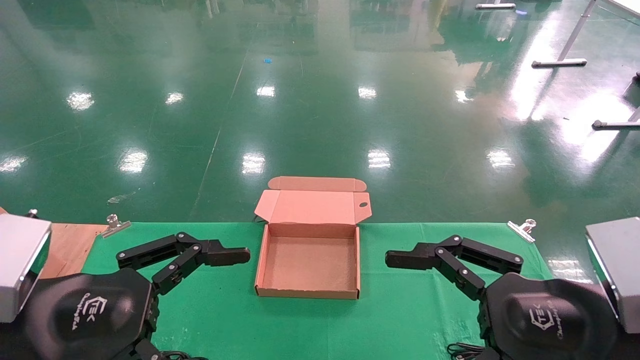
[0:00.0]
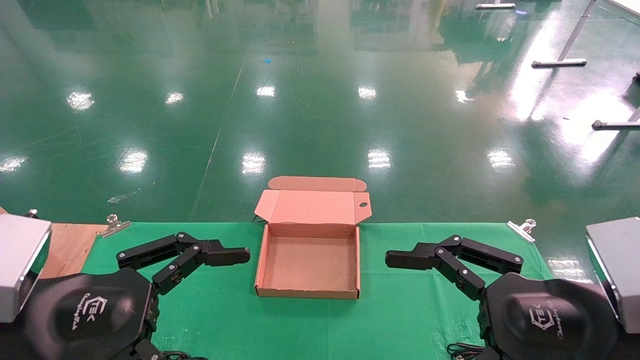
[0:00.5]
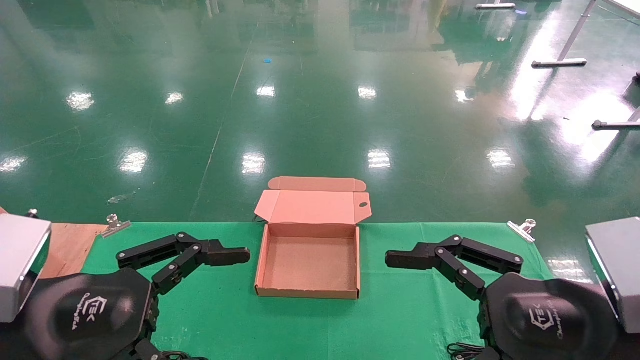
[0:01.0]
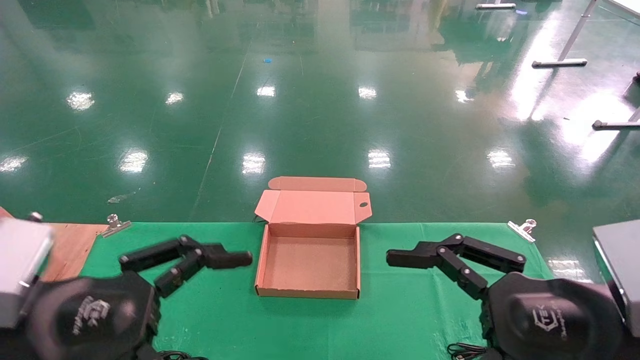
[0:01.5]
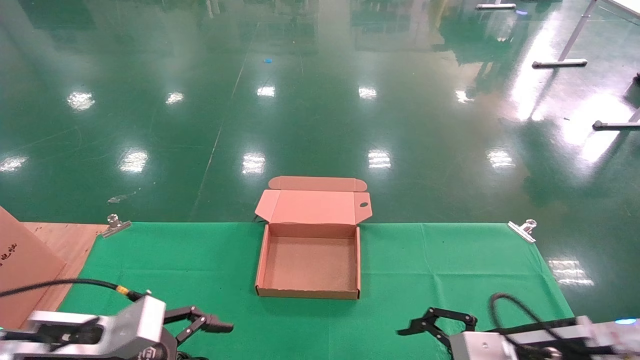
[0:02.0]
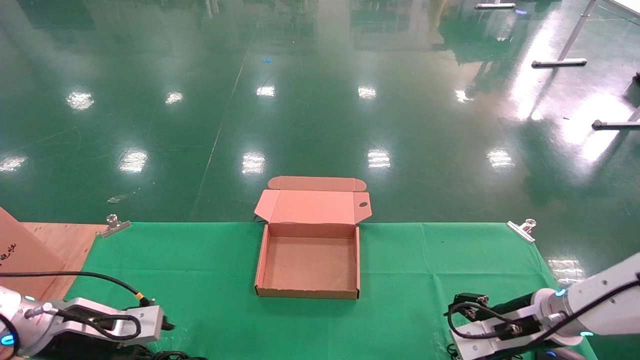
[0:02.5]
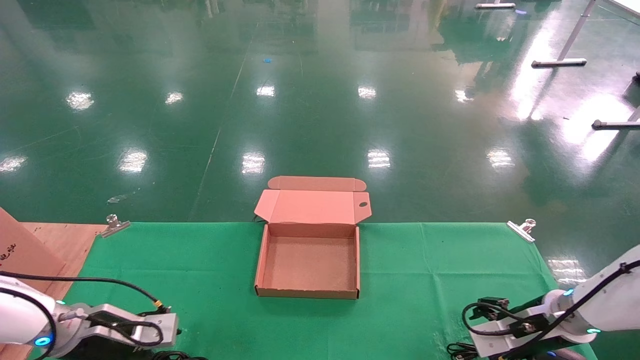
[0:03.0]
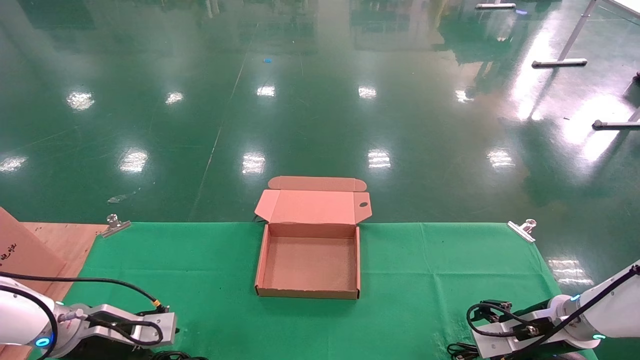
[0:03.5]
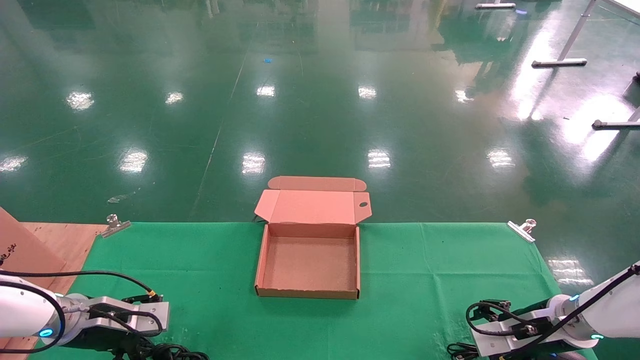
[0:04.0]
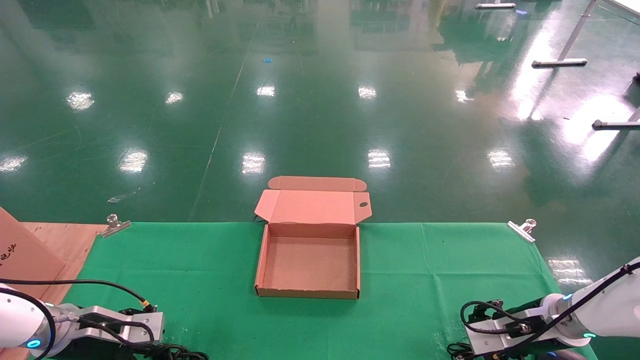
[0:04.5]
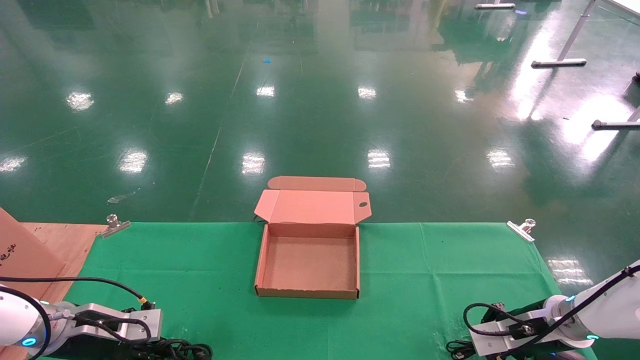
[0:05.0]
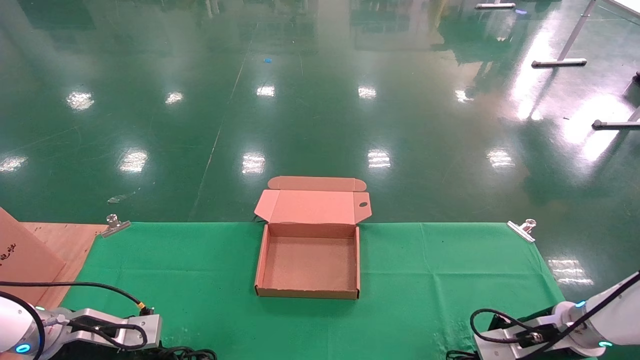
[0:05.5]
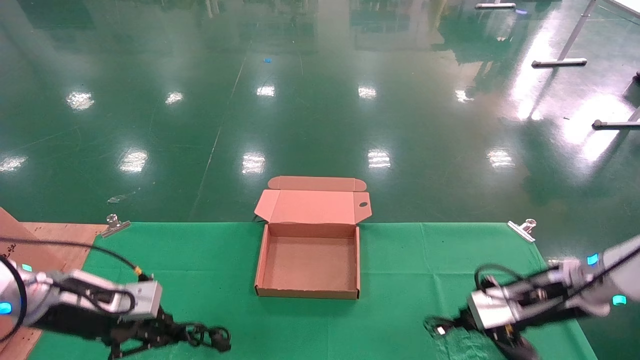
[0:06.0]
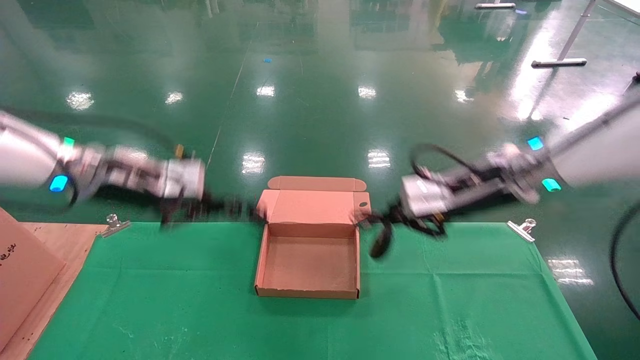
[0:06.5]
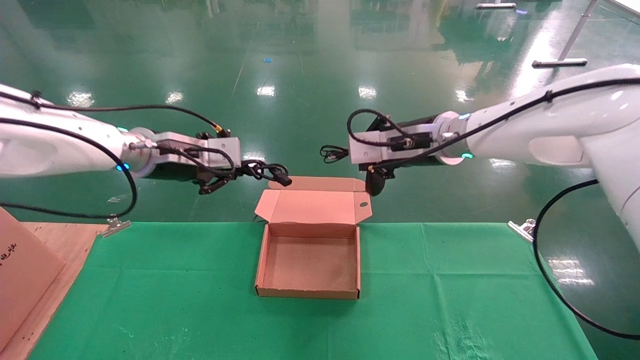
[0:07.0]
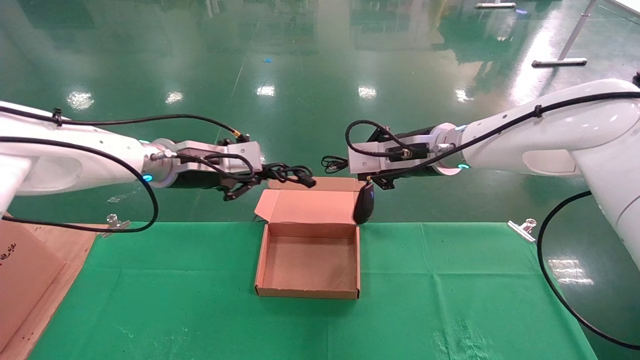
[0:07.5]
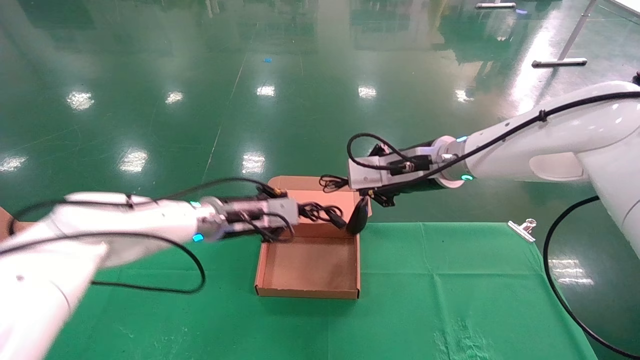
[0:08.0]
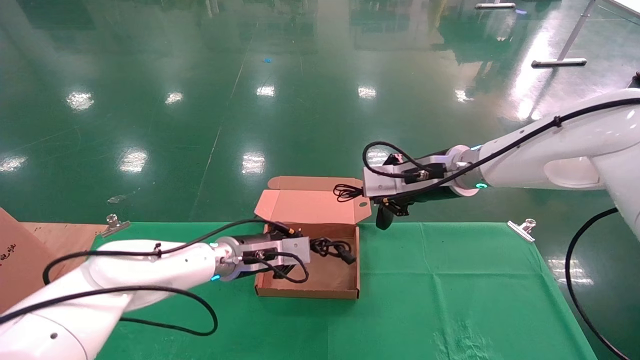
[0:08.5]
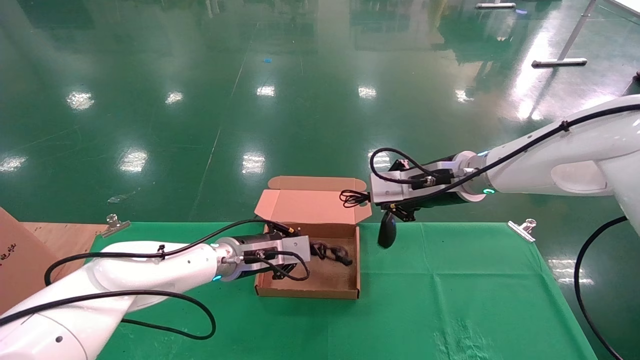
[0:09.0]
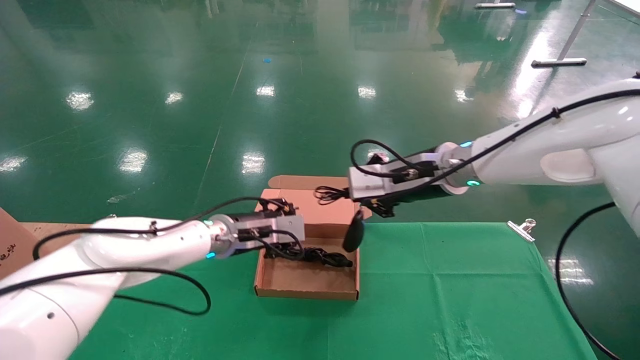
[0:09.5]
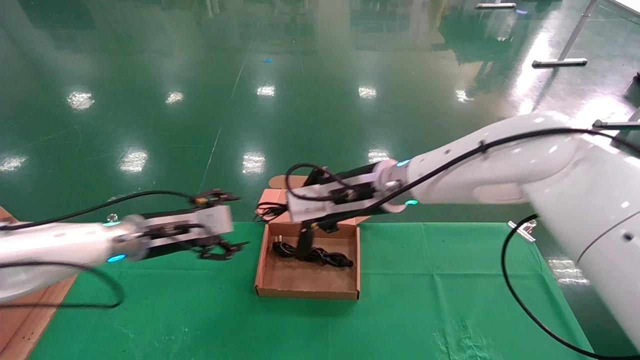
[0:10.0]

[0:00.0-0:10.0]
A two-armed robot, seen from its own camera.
Step, 0:02.5 to 0:06.5: Grab and lift both the mouse and power cord from the accessory packaging area at the same time.
0:00.0 to 0:02.0: The right gripper shifts approximately 15 cm forward and downward; the left gripper goes approximately 15 cm downward and forward.
0:02.0 to 0:04.0: The right gripper heads forward, to the right and downward, covering roughly 15 cm. Meanwhile the left gripper is displaced forward, to the left and downward by some 15 cm.
0:04.0 to 0:06.0: Both grippers move upward, roughly 10 cm. The left gripper closes up. Meanwhile the right gripper closes up.
0:06.0 to 0:08.0: The left gripper shifts roughly 20 cm to the right and forward. The right gripper is displaced to the left and upward by some 20 cm.
0:08.0 to 0:10.0: The two grippers go roughly 10 cm to the left. The left gripper opens up.

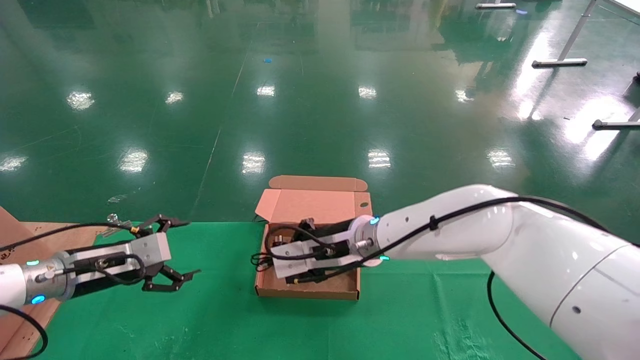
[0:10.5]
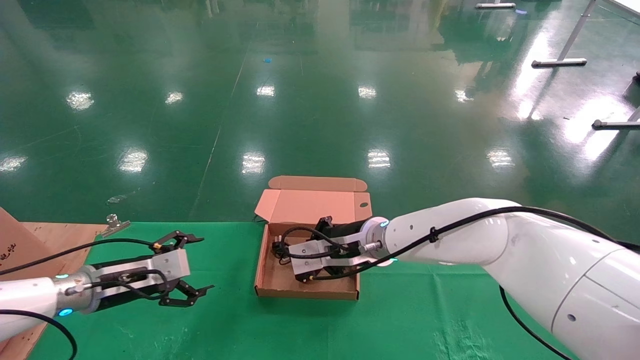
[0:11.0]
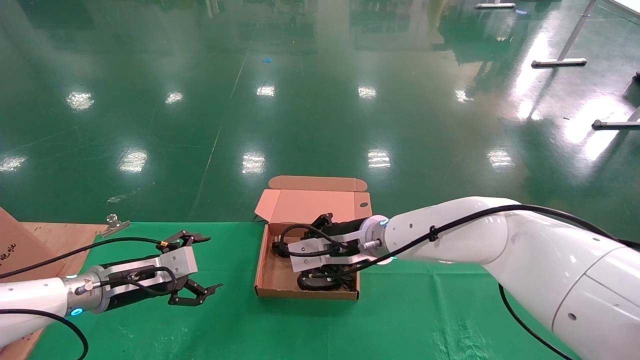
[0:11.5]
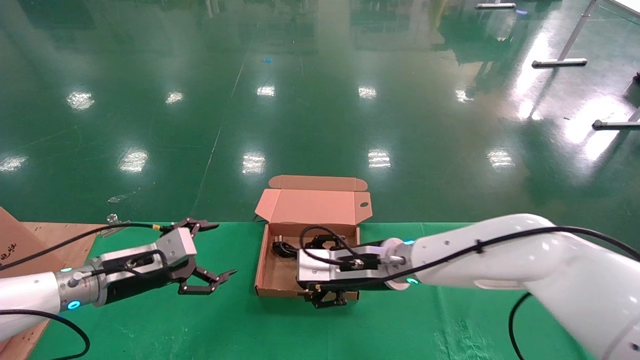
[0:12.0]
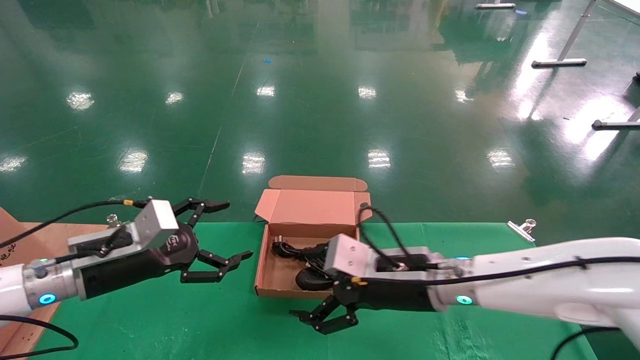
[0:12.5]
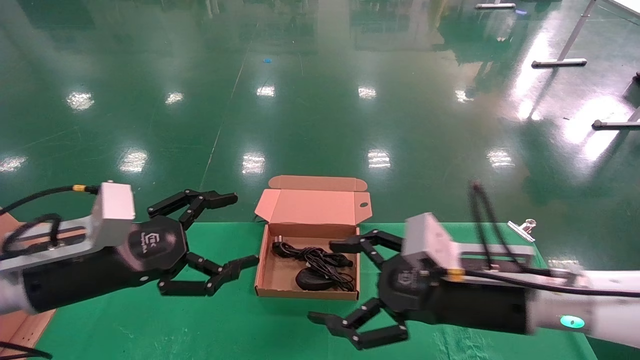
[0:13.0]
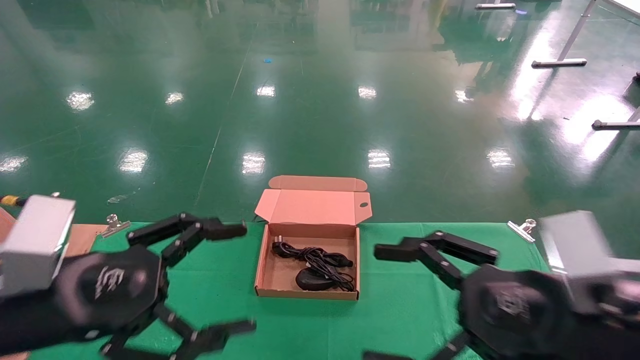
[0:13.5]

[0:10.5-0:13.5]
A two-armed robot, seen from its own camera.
0:10.5 to 0:12.0: The right gripper changes place by approximately 5 cm, and opens up.
0:12.0 to 0:13.5: The left gripper heads backward and upward, covering approximately 20 cm. Meanwhile the right gripper travels backward and to the right by roughly 25 cm, and opens its fingers.

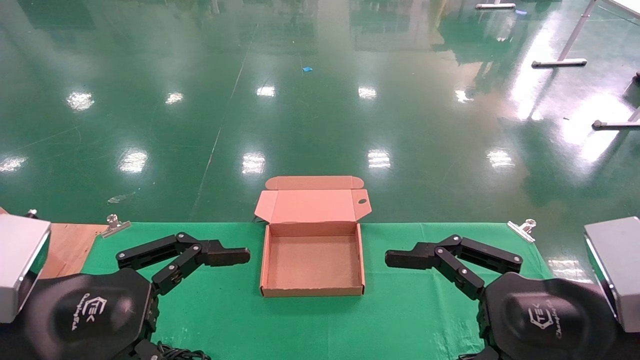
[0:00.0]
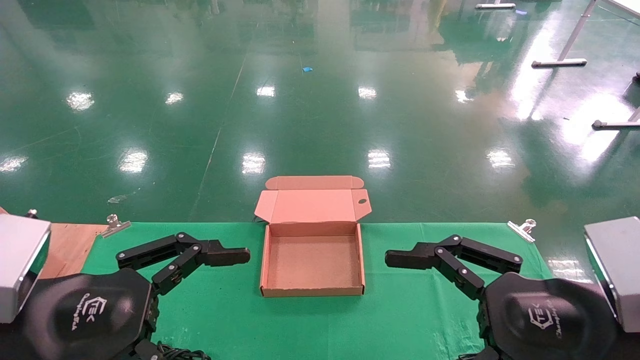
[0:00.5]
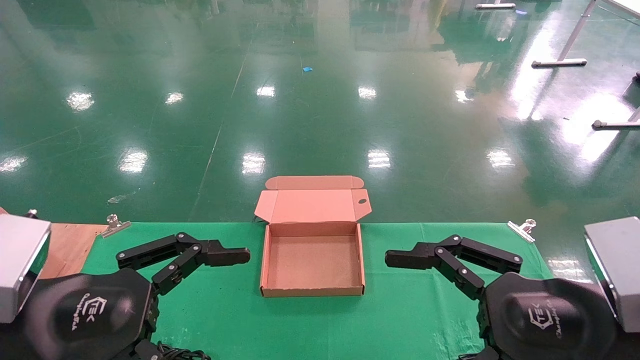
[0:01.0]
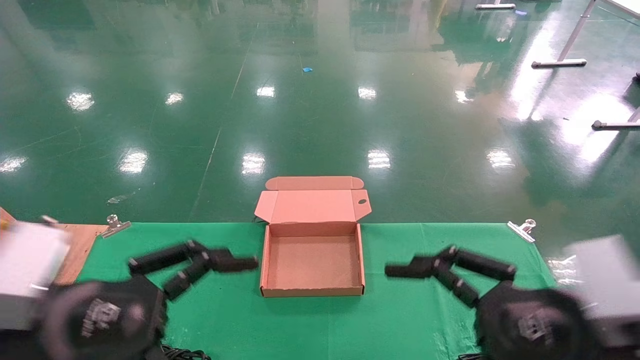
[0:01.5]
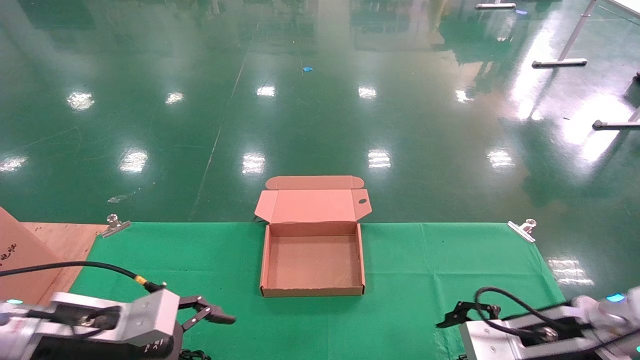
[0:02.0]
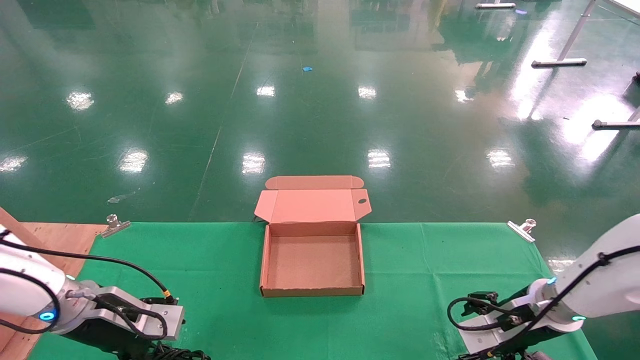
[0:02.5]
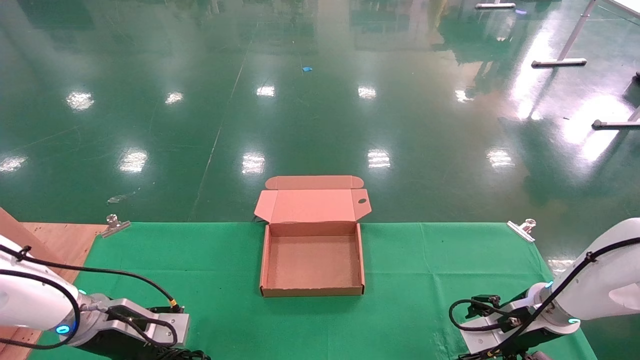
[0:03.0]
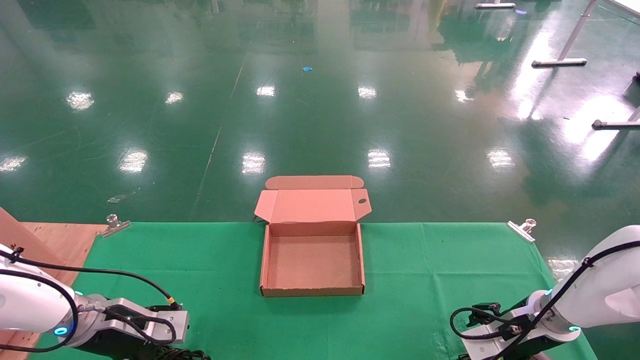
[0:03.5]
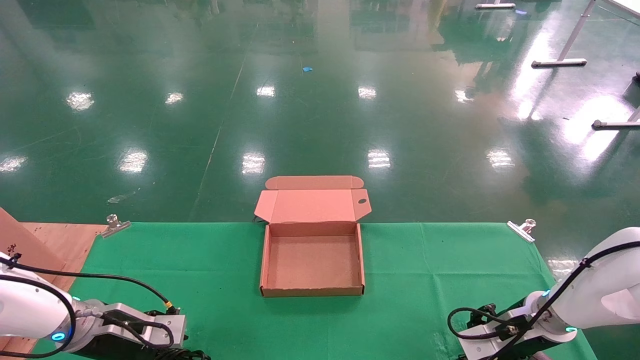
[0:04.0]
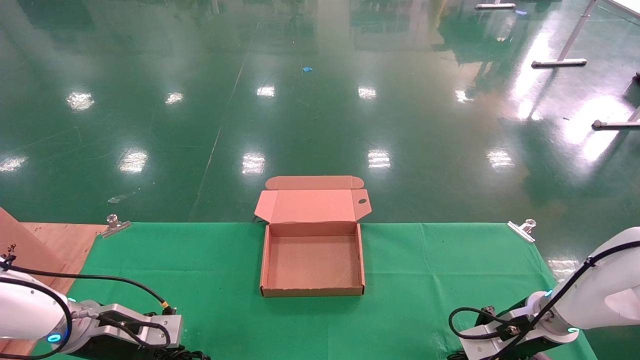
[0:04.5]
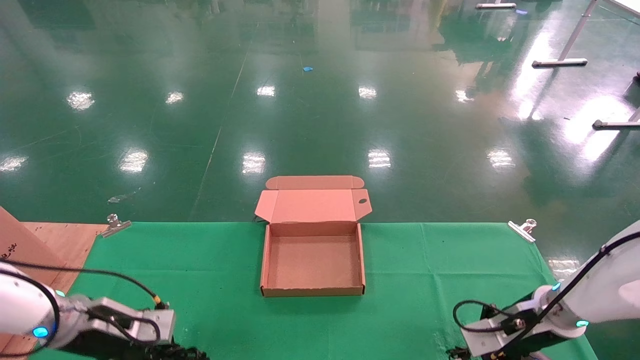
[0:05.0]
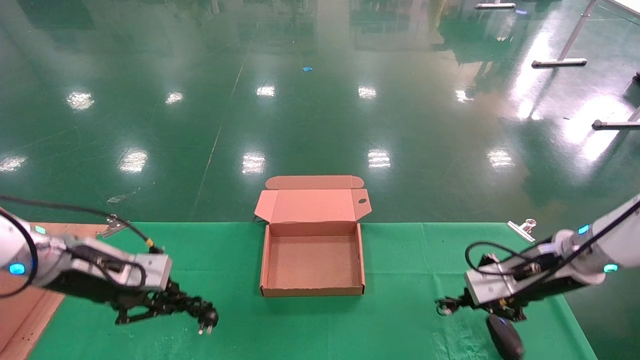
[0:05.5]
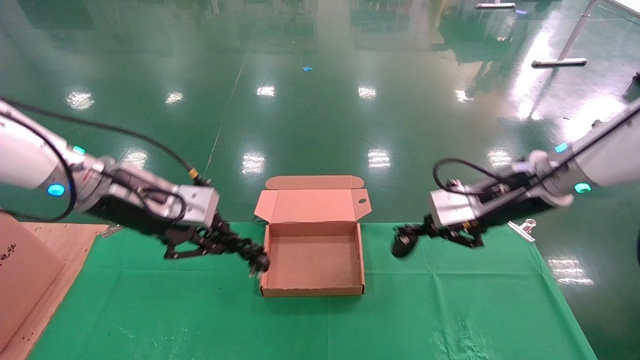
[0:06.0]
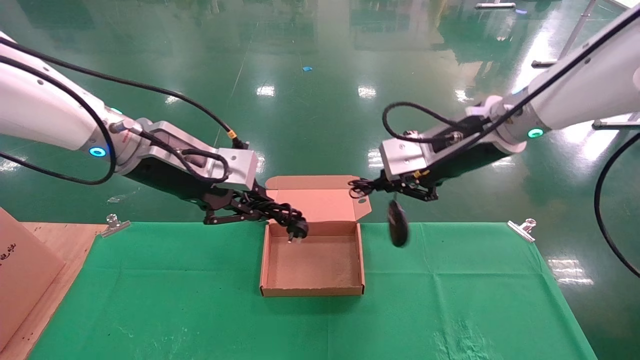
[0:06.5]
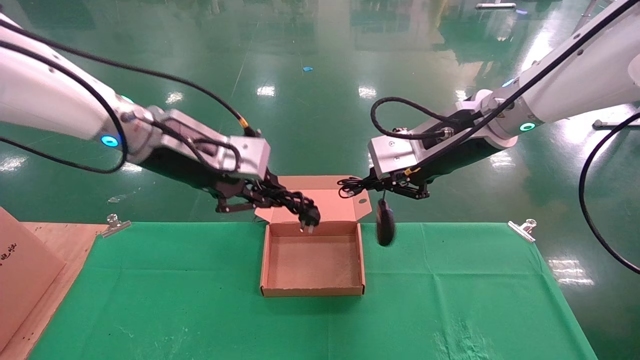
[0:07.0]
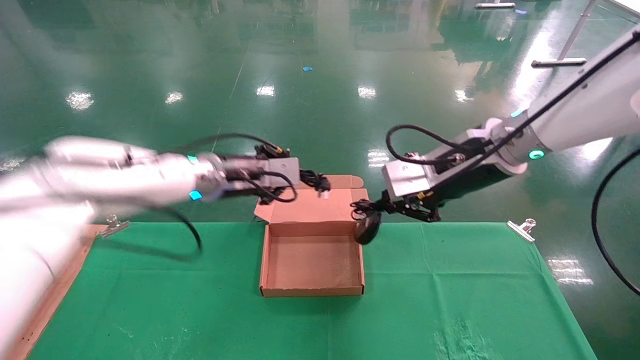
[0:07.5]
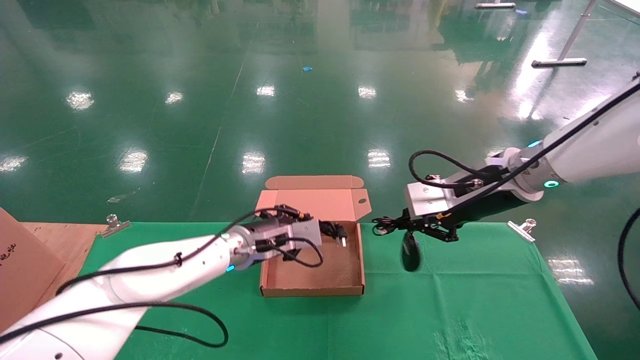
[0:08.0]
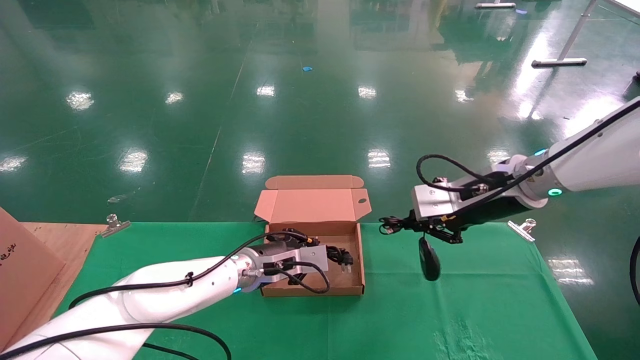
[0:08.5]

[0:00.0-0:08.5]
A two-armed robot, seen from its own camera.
Step, 0:02.5 to 0:05.5: Grab and lift both the mouse and power cord from the accessory packaging area at the same time.
0:00.0 to 0:02.0: Both grippers travel together forward and downward, roughly 15 cm.
0:02.0 to 0:04.0: Both grippers travel together forward and downward, approximately 10 cm.
0:04.0 to 0:06.5: The right gripper travels upward and to the left by roughly 30 cm, and closes its fingers. Meanwhile the left gripper goes roughly 30 cm upward and to the right, and closes its fingers.
0:06.5 to 0:08.5: The right gripper moves downward, about 5 cm. Meanwhile the left gripper shifts roughly 25 cm downward, forward and to the right.
